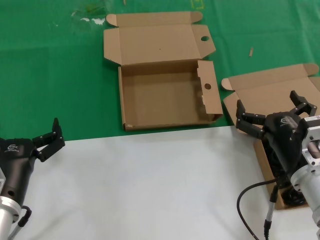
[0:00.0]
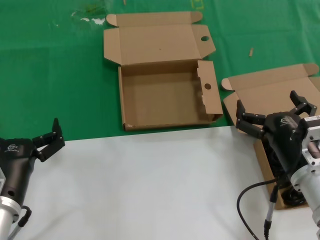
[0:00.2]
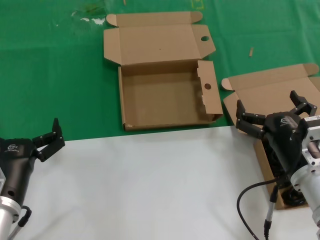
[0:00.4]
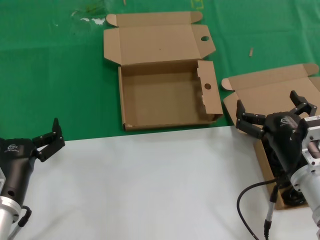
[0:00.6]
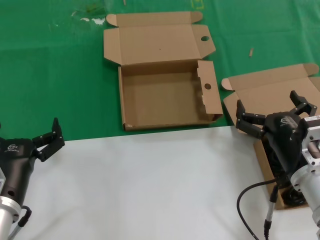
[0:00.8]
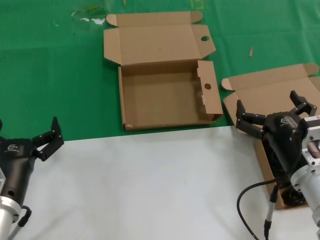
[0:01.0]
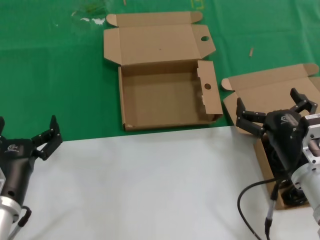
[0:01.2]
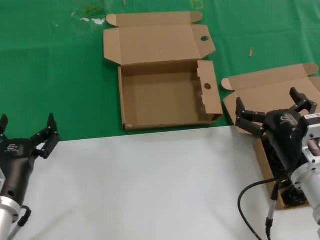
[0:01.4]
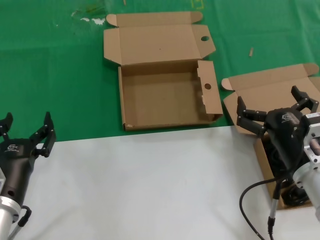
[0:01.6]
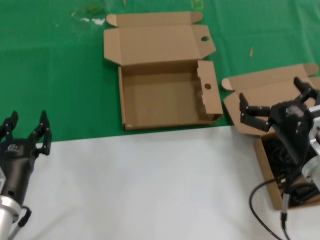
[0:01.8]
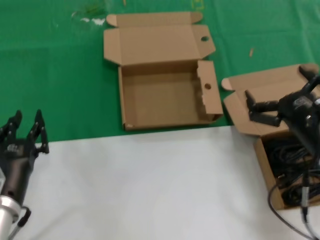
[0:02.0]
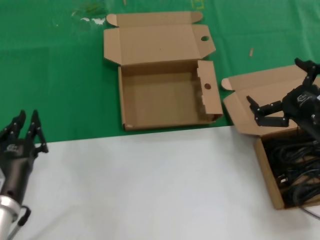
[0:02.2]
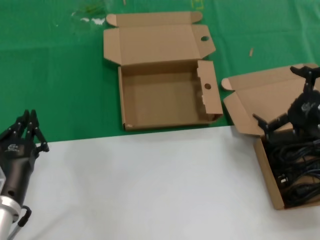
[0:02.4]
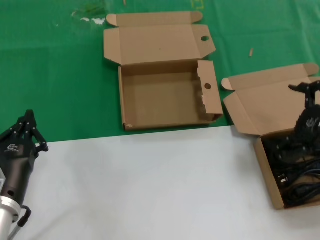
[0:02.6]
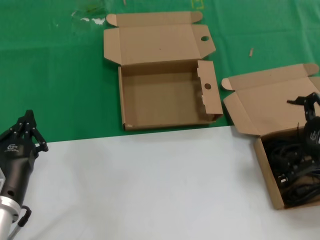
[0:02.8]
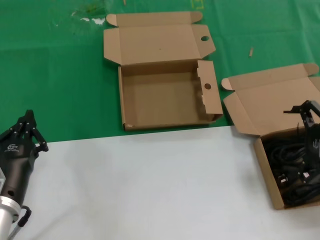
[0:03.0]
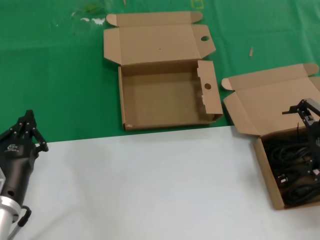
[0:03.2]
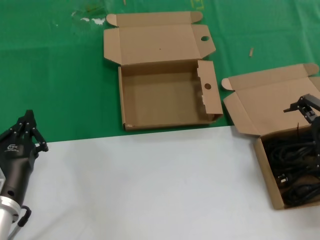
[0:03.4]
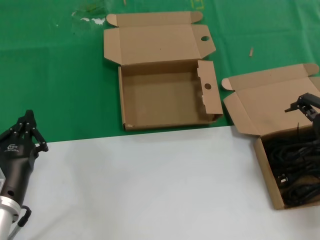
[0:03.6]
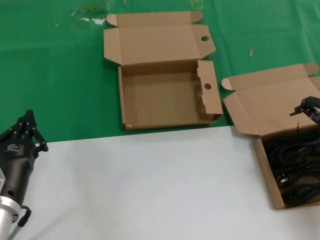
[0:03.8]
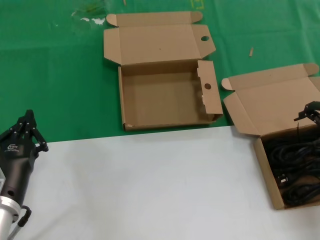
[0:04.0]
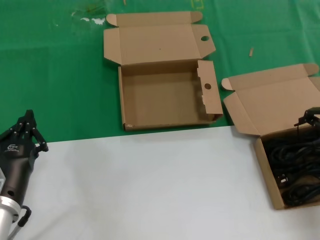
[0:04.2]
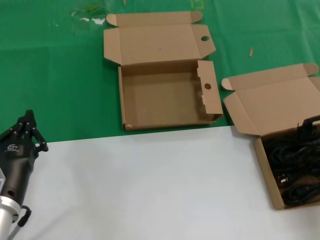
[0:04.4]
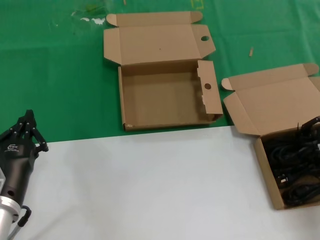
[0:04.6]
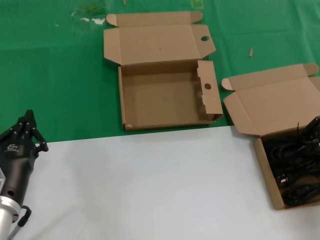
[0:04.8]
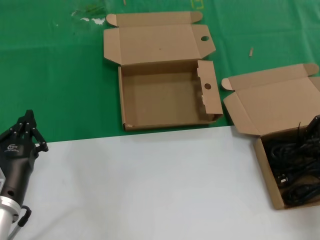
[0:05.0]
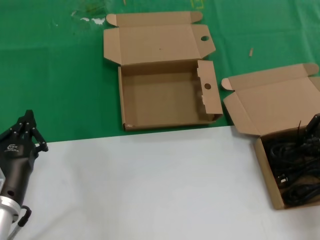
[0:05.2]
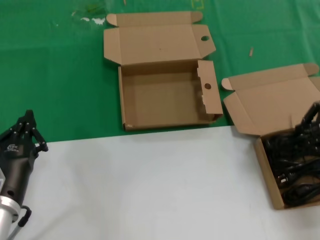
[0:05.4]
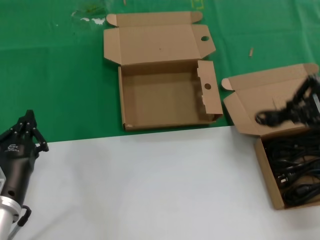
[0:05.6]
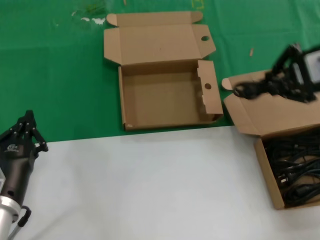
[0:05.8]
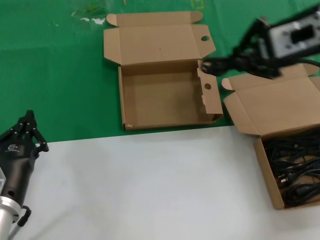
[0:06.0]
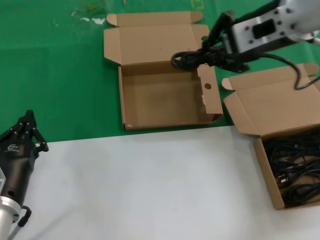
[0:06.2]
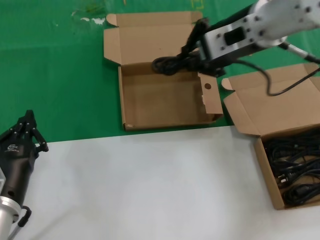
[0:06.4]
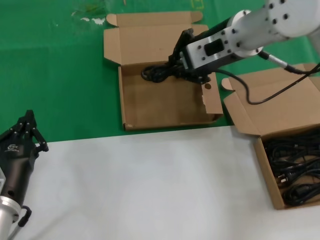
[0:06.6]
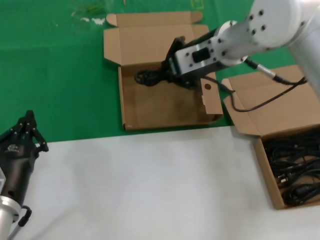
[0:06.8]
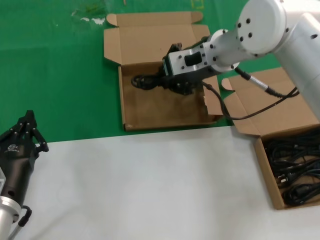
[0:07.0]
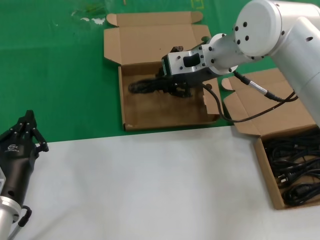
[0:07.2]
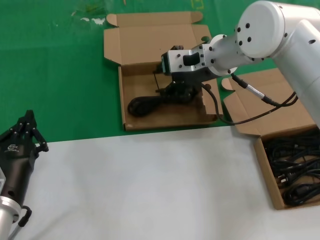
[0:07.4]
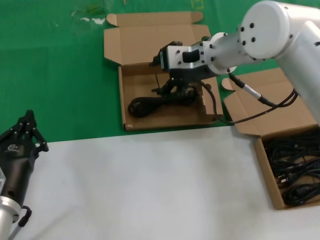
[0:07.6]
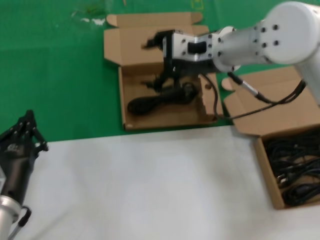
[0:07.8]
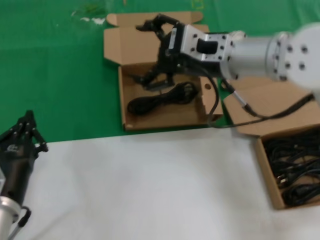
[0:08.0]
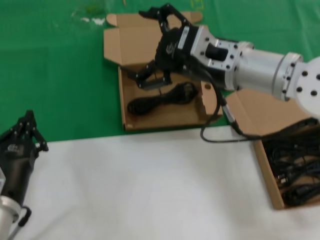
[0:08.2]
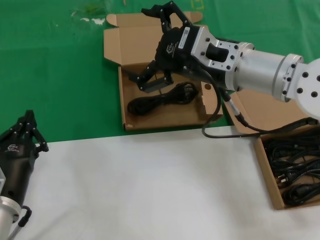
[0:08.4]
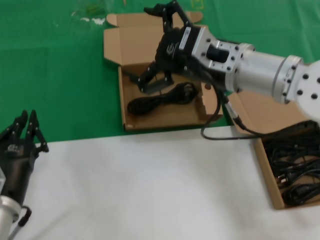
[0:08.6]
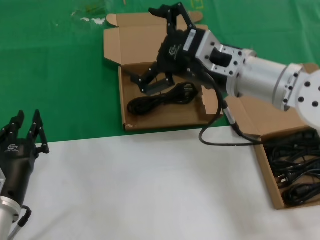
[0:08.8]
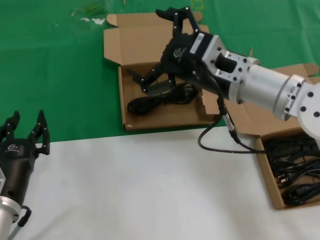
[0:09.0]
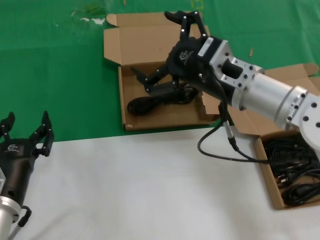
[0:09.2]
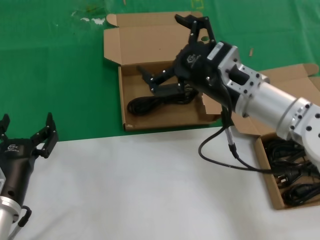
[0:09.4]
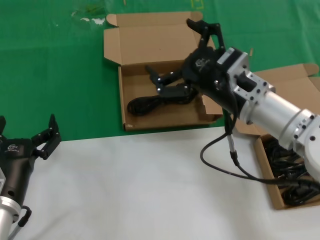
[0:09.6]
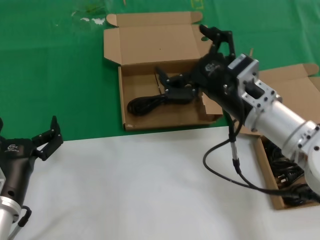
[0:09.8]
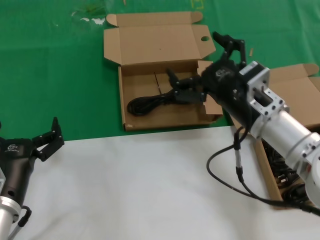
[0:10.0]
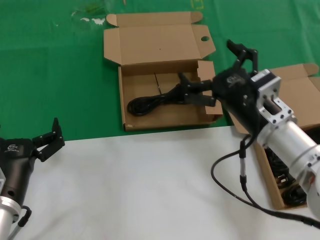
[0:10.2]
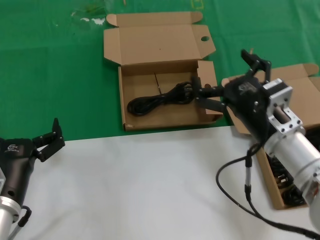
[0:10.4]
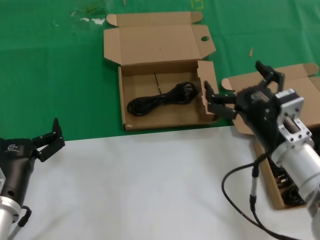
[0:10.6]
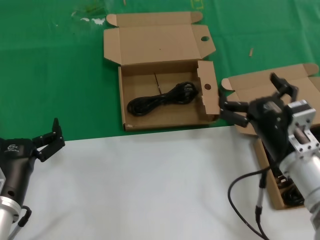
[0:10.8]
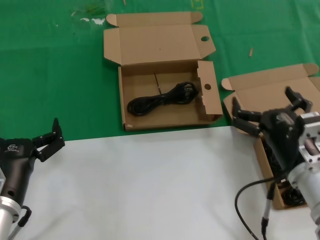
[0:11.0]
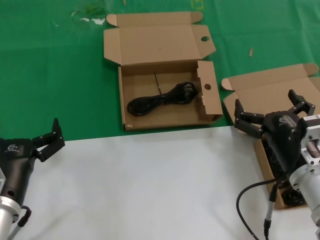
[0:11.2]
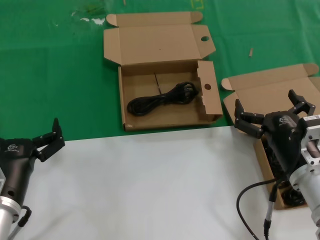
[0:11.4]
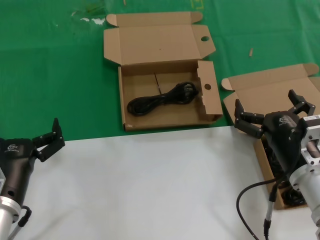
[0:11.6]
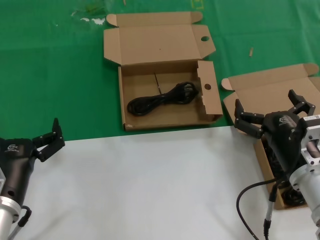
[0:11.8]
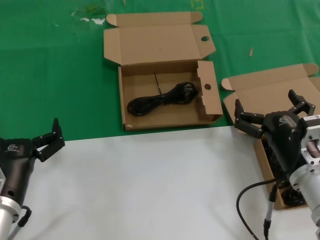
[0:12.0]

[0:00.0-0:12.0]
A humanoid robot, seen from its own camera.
Task of the whole recording: take the parts from the box containing them and put them into an empty box.
Step, 0:00.0 to 0:04.6: Grasp the data cable.
Step, 0:04.8 to 0:07.4: Place the data cable in the another box.
0:00.0 to 0:01.6: Both hands stay put.
0:01.6 to 0:03.0: The right hand shifts approximately 15 cm to the right and upward.
0:03.0 to 0:04.4: The right hand travels forward by roughly 5 cm.
0:04.4 to 0:06.0: The right hand is displaced upward and to the left by about 20 cm.
0:06.0 to 0:07.6: The right hand shifts roughly 20 cm to the left, forward and downward.
0:07.6 to 0:09.0: The right hand heads backward, covering approximately 10 cm.
0:09.0 to 0:10.4: The right hand travels downward and backward by approximately 15 cm.
0:10.4 to 0:12.0: The right hand shifts roughly 5 cm downward.

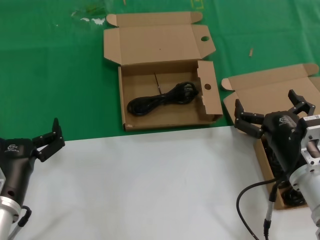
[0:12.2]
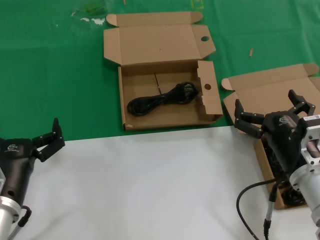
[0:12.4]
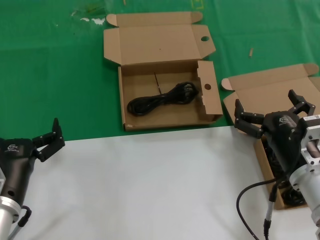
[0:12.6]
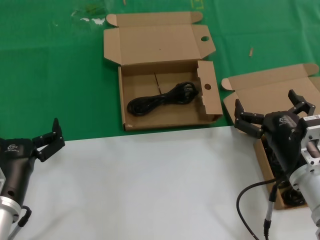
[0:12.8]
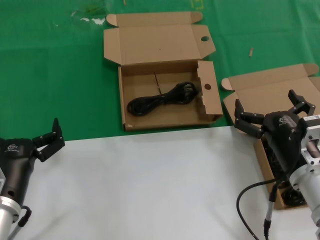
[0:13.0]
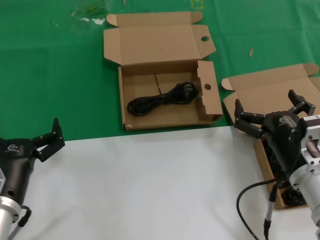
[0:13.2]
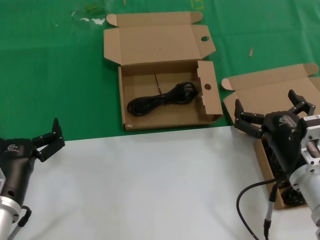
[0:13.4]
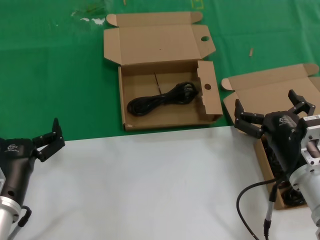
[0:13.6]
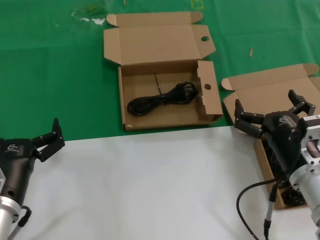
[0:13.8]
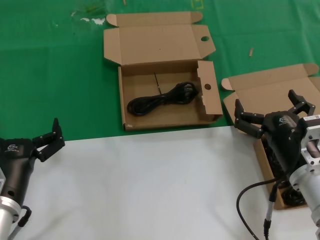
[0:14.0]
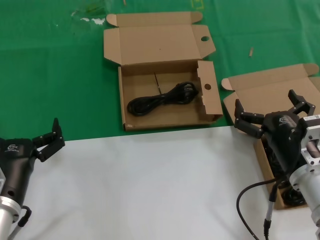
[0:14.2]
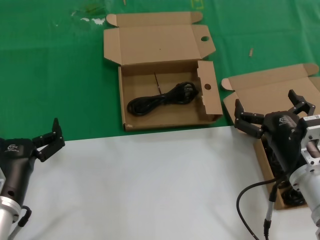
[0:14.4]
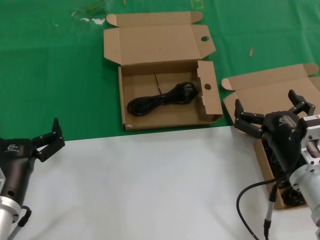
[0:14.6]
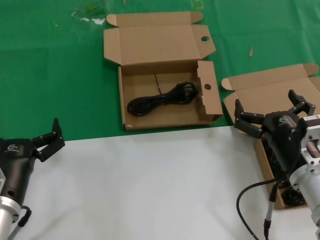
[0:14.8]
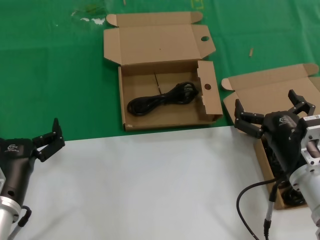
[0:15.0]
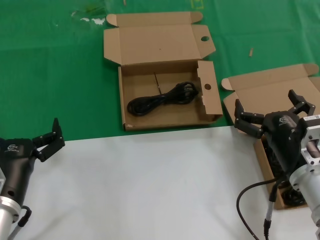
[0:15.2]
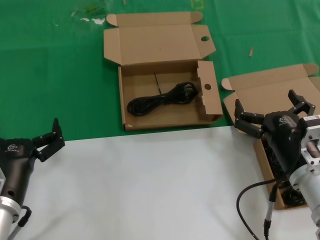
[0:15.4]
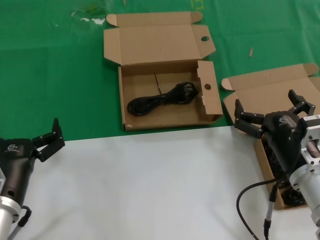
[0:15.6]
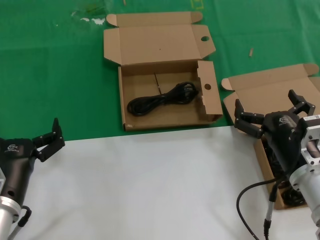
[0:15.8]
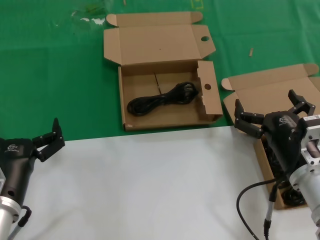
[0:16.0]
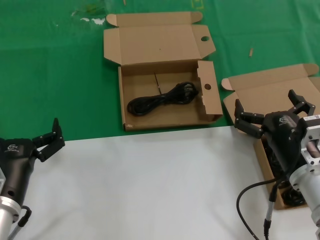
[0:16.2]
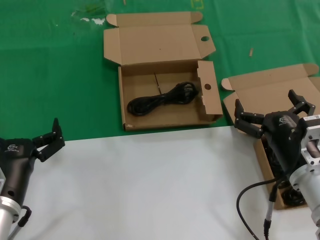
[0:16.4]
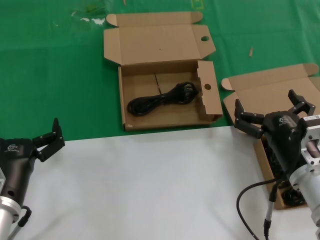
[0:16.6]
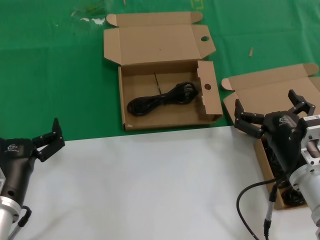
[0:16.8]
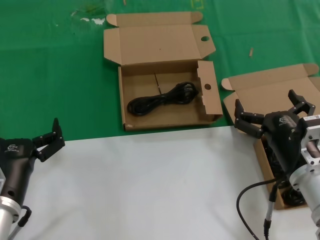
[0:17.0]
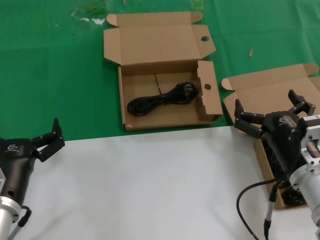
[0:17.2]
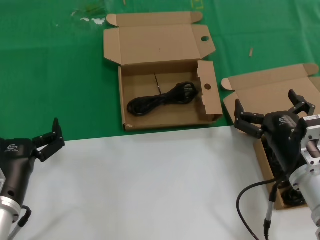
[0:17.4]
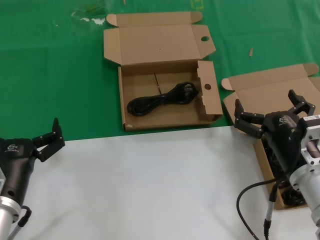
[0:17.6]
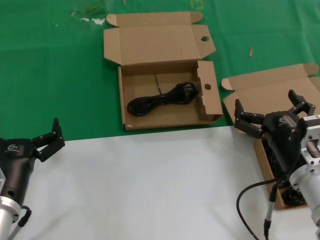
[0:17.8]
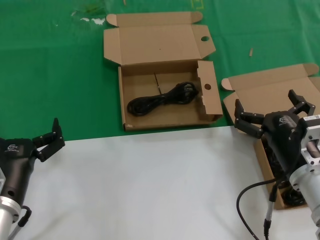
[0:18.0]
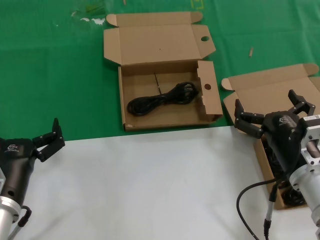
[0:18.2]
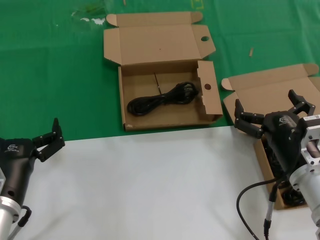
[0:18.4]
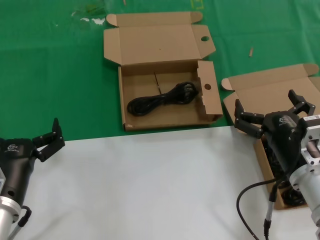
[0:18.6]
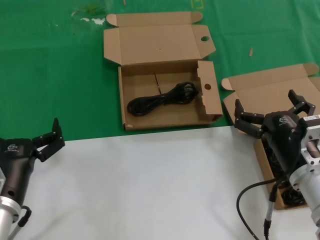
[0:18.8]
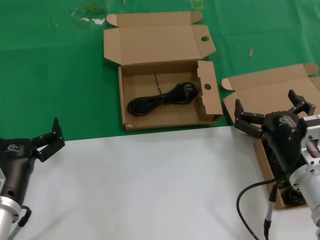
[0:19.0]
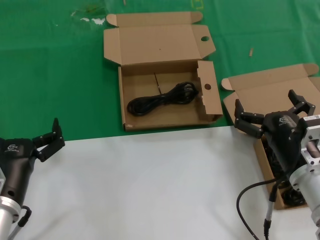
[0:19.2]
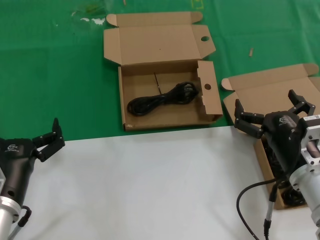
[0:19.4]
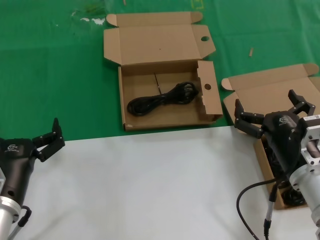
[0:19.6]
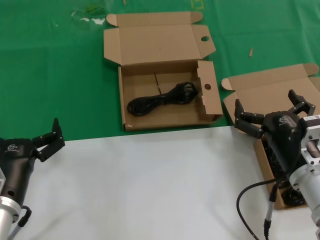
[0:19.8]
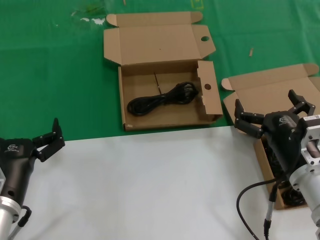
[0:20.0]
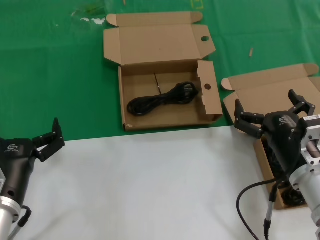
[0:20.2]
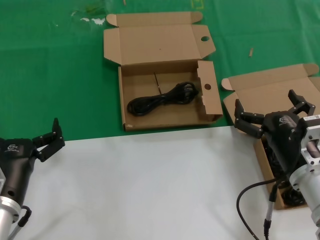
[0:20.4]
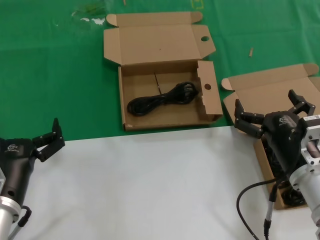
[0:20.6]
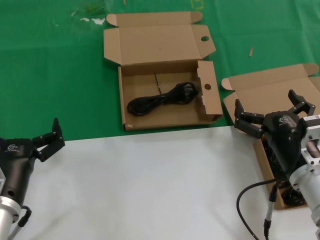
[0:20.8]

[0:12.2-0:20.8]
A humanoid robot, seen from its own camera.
Task of the whole recording: take the parts from the box containing them and put them into an empty box.
0:12.2 to 0:20.8: Both hands stay about where they are.

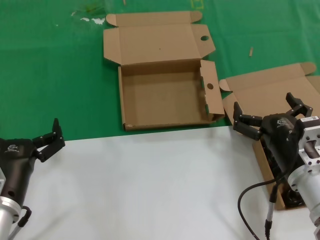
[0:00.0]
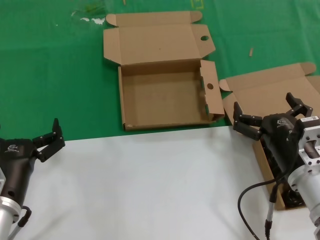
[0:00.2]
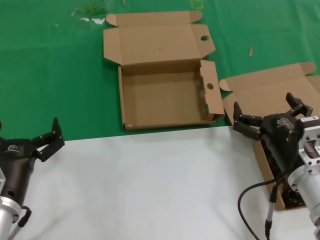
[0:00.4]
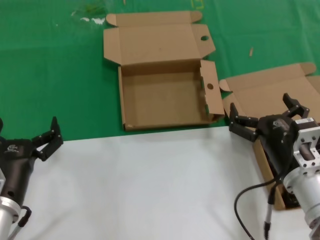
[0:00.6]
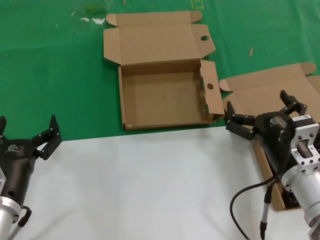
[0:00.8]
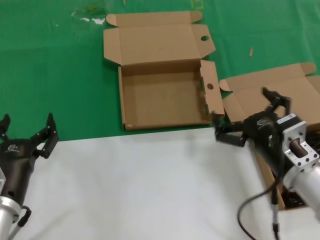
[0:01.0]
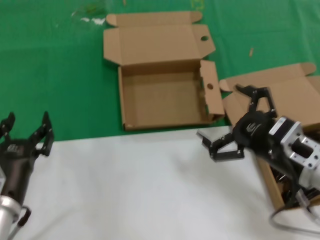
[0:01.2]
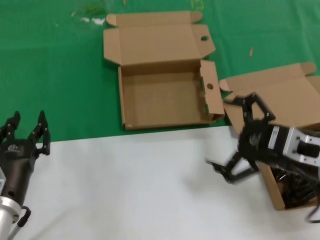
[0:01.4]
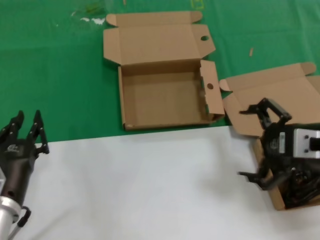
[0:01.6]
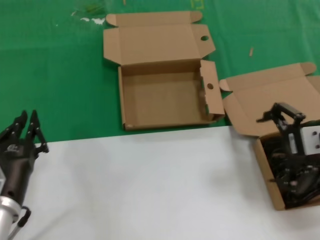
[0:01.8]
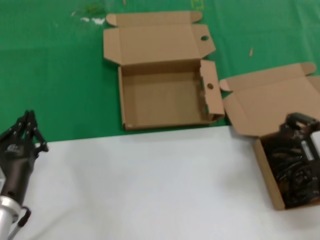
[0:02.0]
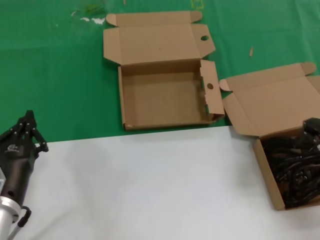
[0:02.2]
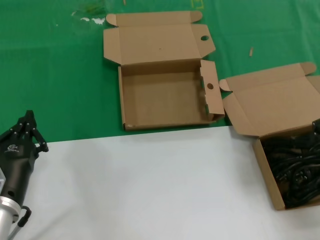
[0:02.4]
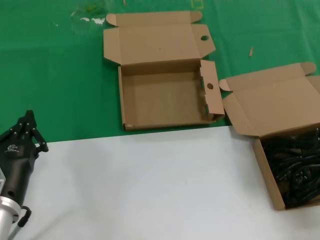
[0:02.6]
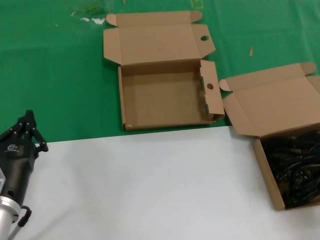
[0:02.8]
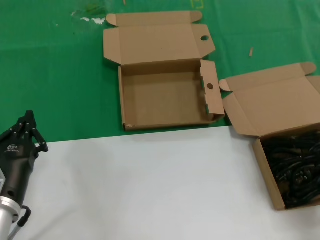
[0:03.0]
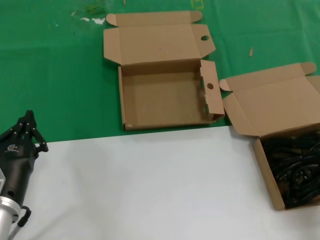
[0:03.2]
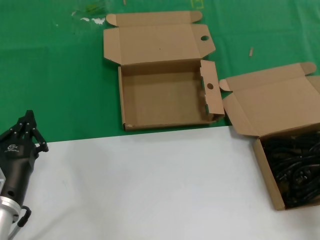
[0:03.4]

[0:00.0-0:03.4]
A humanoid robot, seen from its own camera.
Task of the whole recording: take the parts from the box containing them and put them into an empty box.
0:00.0 to 0:01.6: The right hand moves upward, roughly 15 cm.
0:01.6 to 0:03.4: The right hand heads to the right and forward, covering approximately 10 cm.
